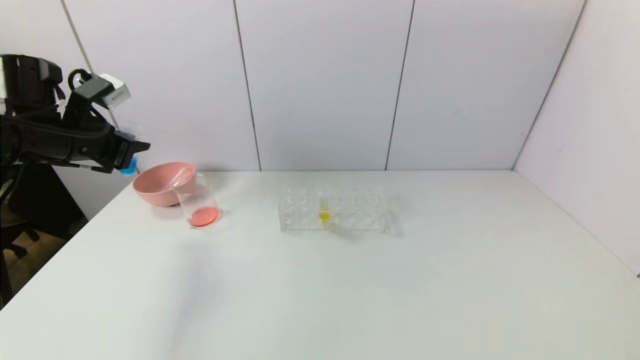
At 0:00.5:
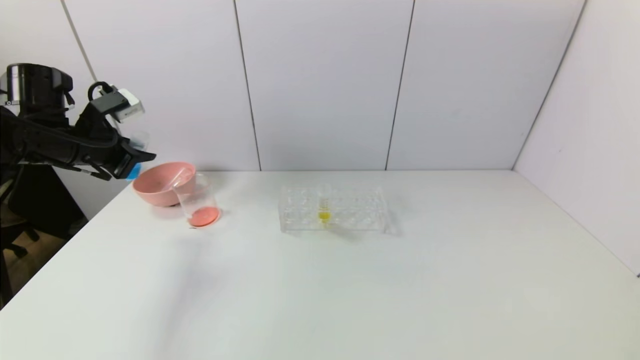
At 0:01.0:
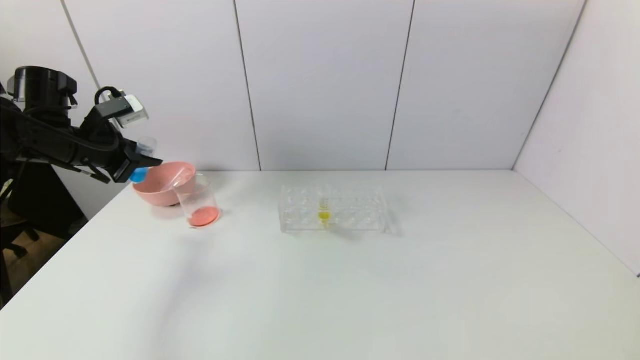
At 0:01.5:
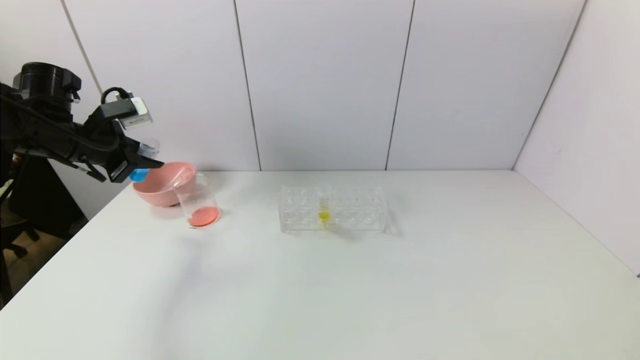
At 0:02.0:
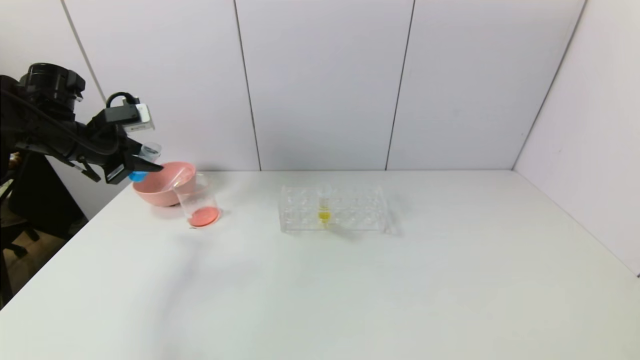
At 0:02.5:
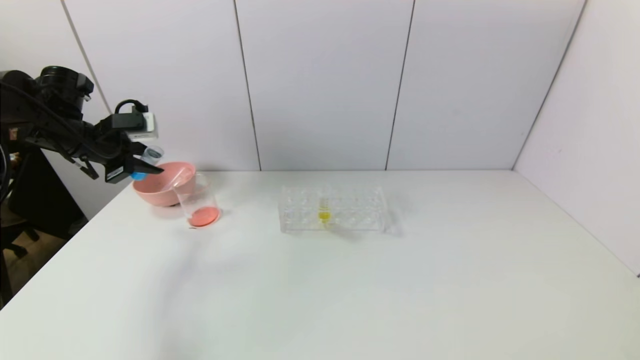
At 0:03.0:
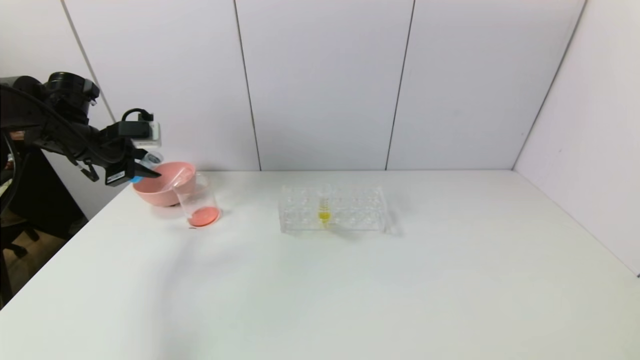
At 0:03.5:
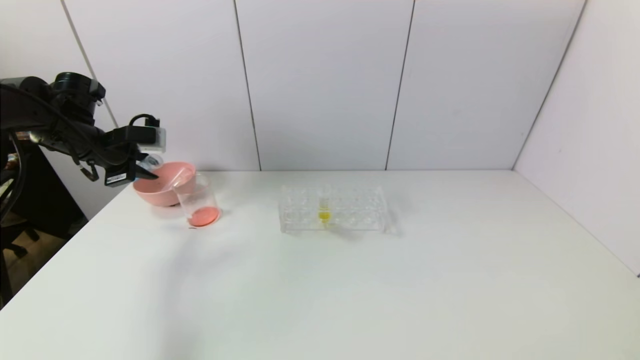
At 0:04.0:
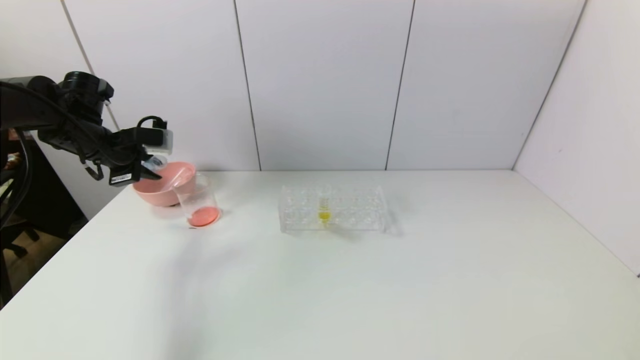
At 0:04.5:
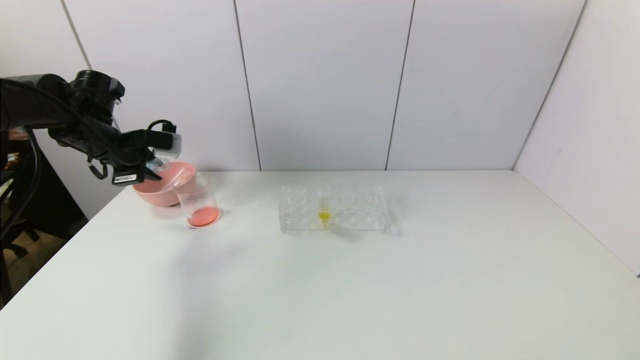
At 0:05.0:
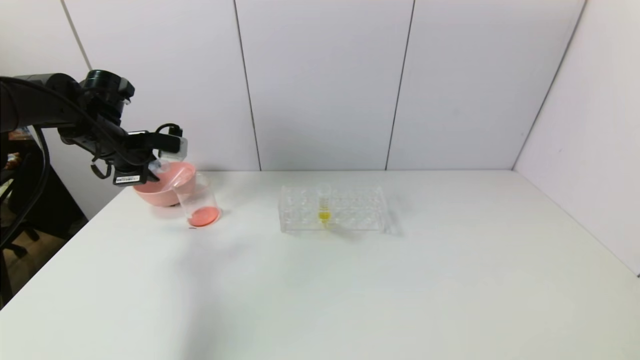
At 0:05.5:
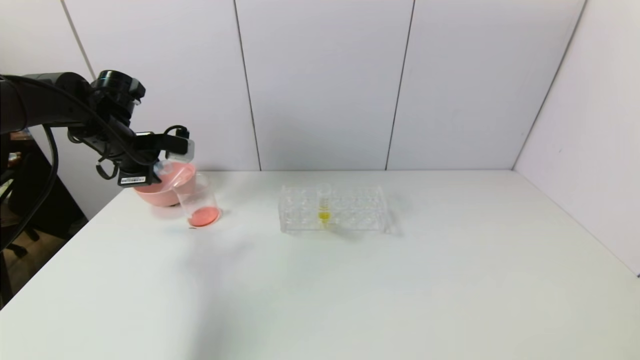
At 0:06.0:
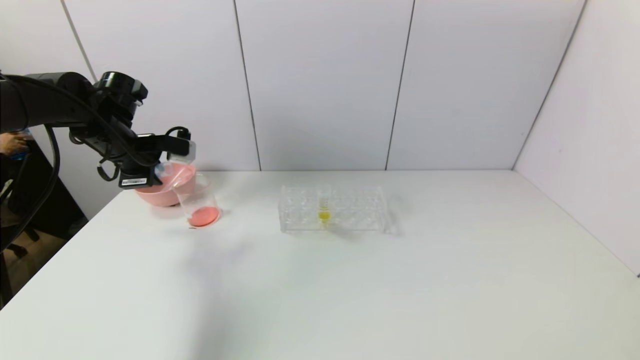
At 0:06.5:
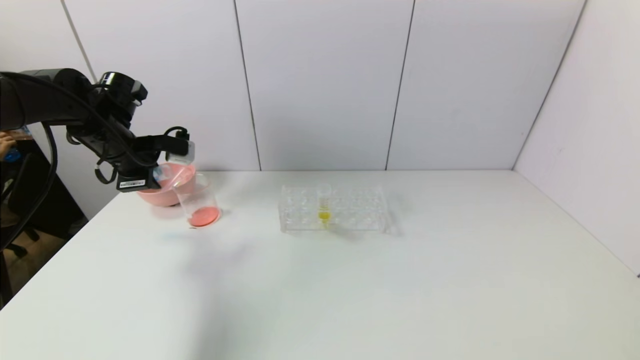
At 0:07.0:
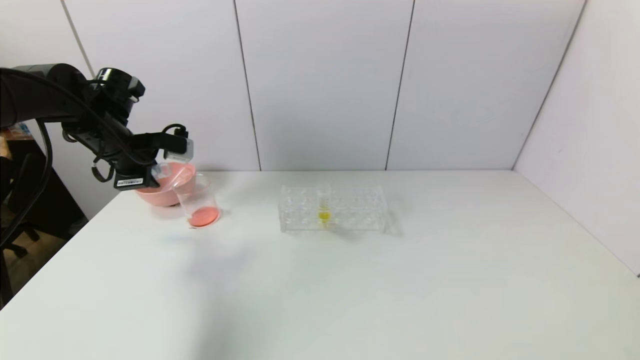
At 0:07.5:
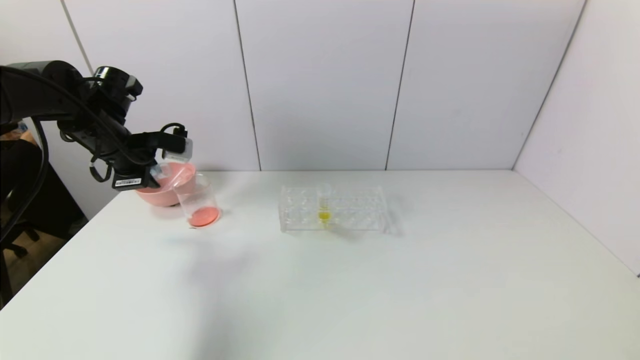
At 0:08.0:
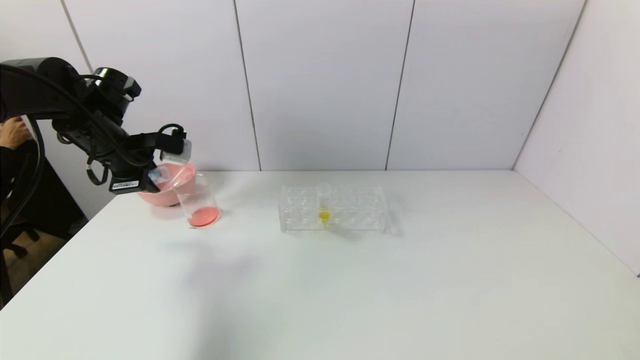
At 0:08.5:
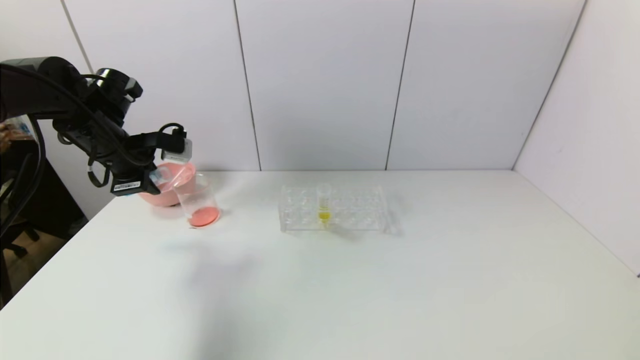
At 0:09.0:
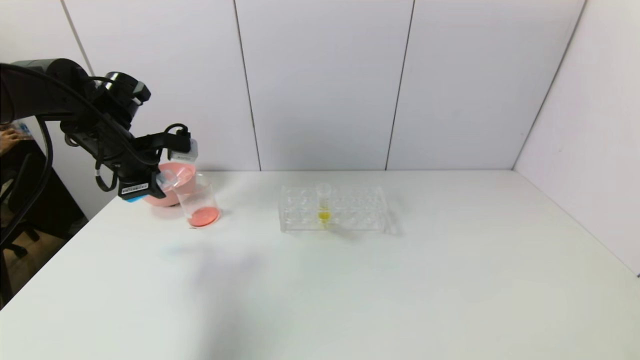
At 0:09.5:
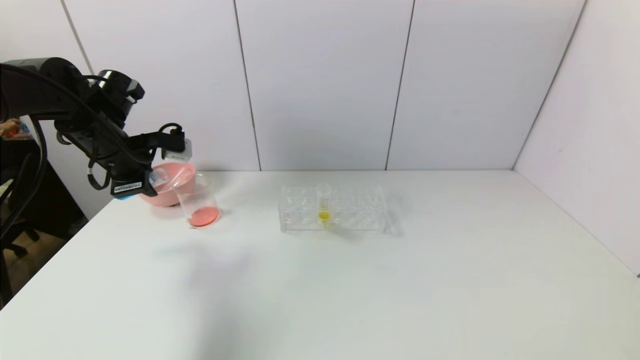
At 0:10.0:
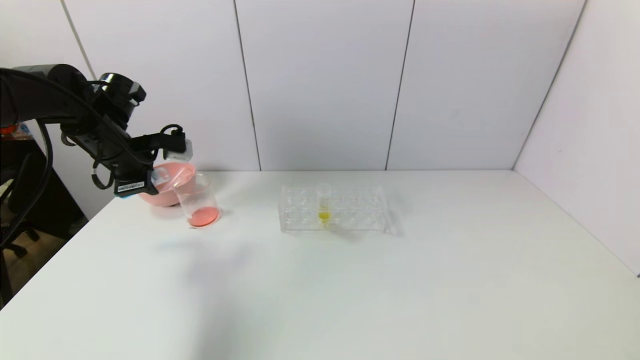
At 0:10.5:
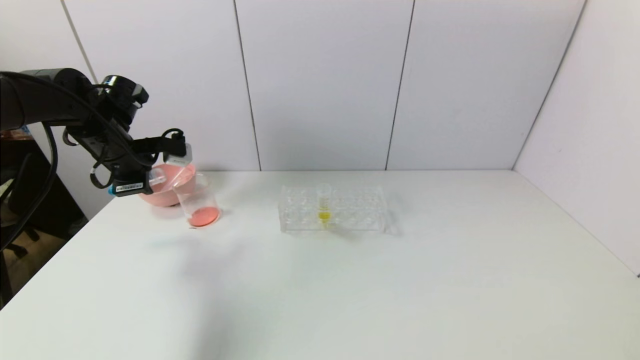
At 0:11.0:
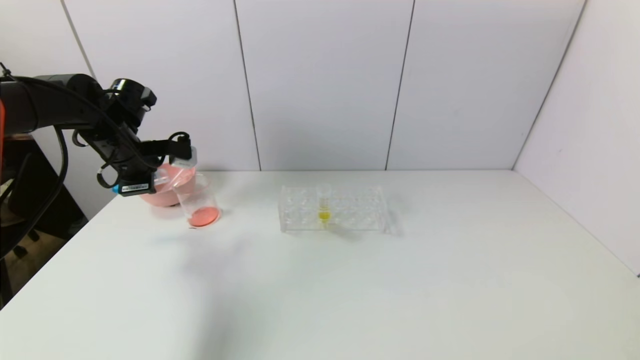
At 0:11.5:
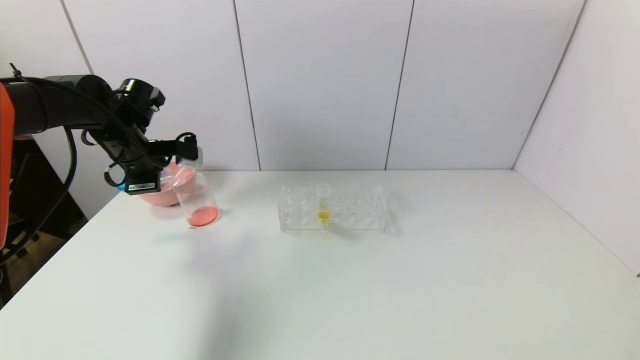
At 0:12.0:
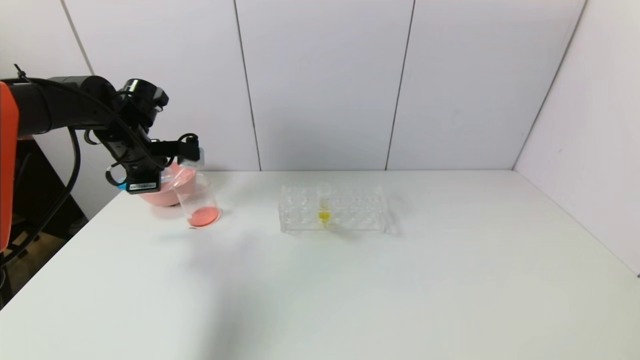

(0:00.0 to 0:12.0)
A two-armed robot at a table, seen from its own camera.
Task of the whole recording: pick up the test tube with red pigment and the test tube with blue pigment by grippers and pour them into the container.
0:04.0 - 0:08.0: The grippers move only a little.
0:08.0 - 0:12.0: The grippers make only small movements.

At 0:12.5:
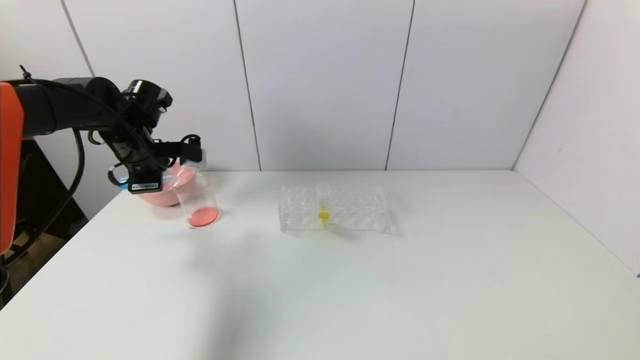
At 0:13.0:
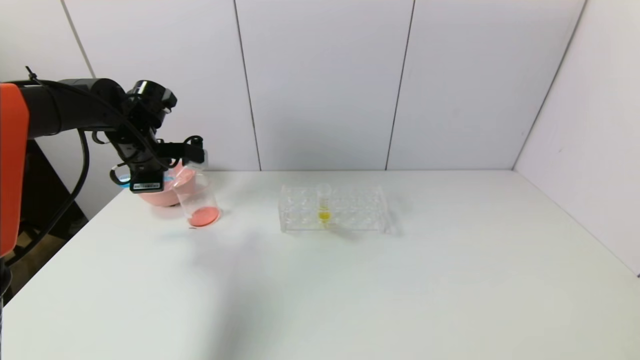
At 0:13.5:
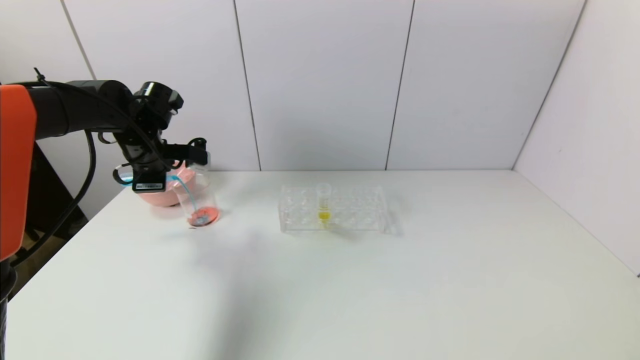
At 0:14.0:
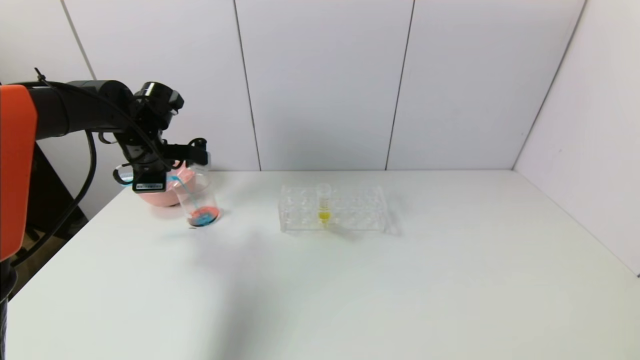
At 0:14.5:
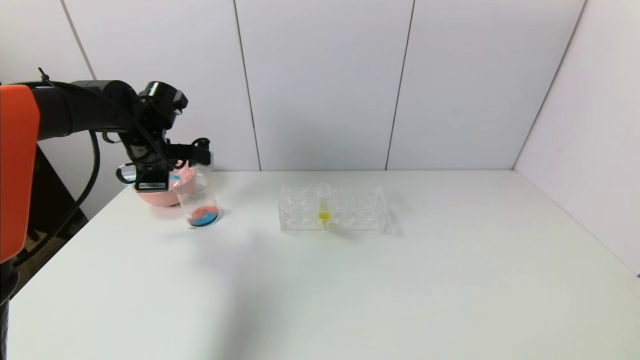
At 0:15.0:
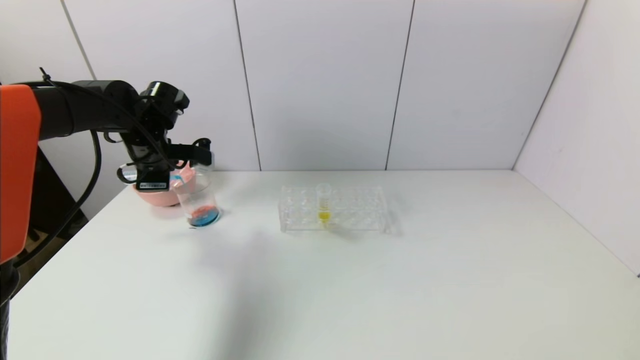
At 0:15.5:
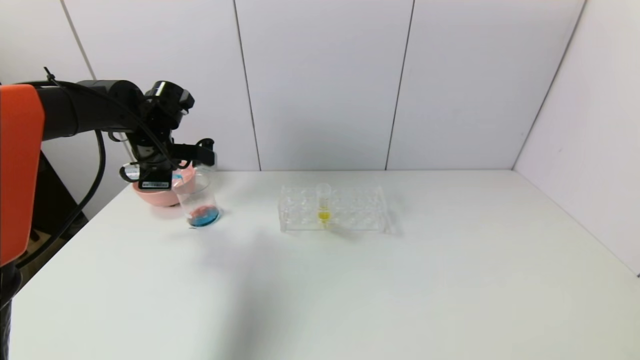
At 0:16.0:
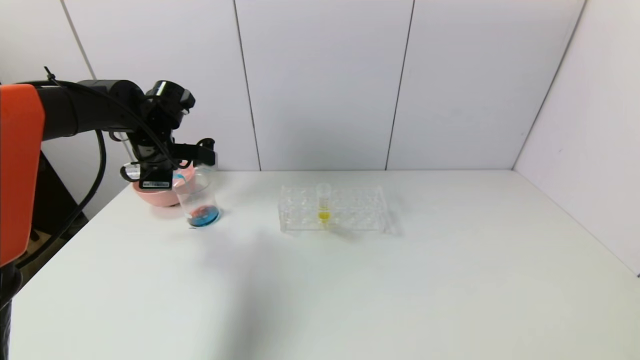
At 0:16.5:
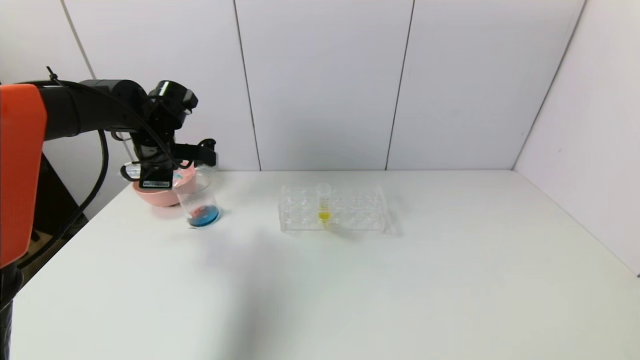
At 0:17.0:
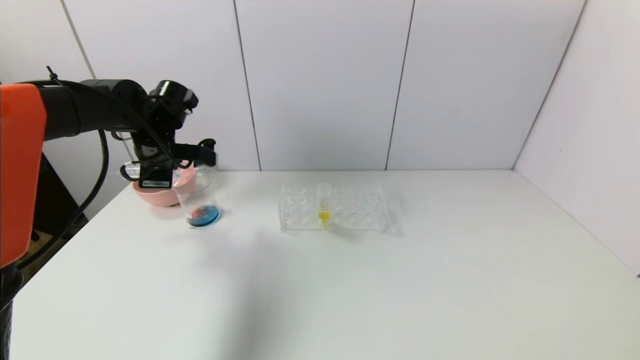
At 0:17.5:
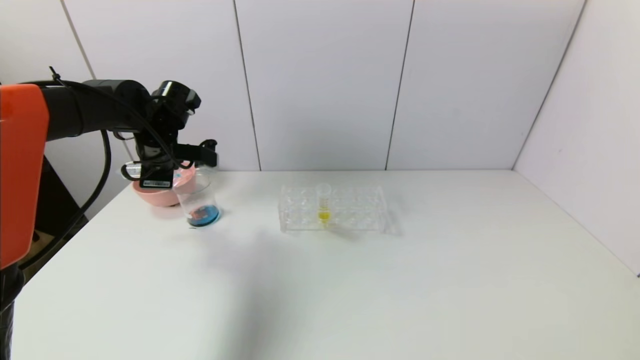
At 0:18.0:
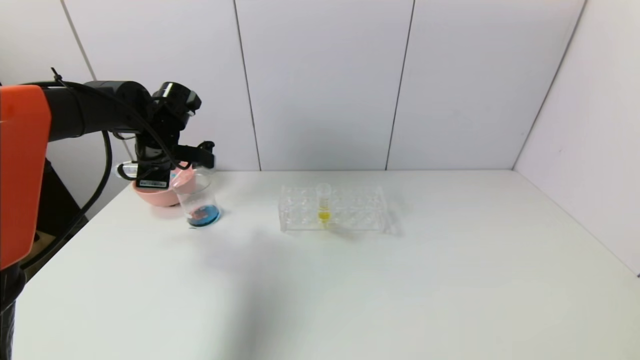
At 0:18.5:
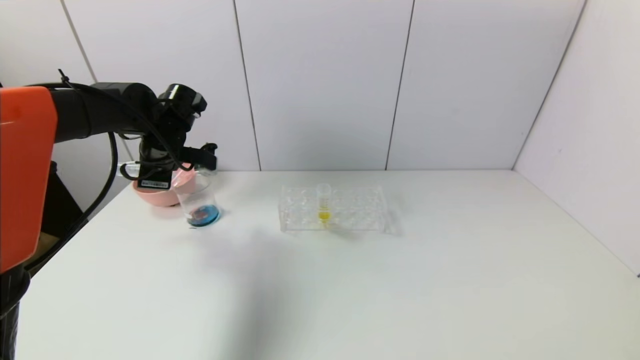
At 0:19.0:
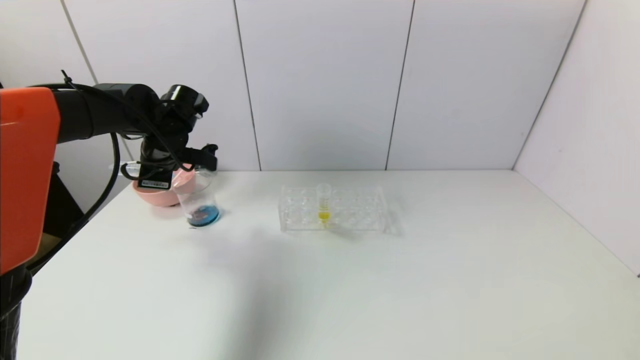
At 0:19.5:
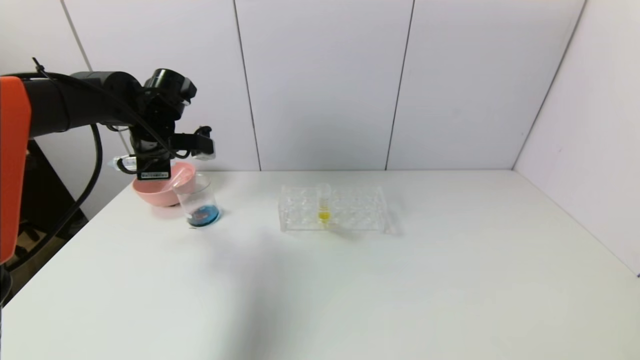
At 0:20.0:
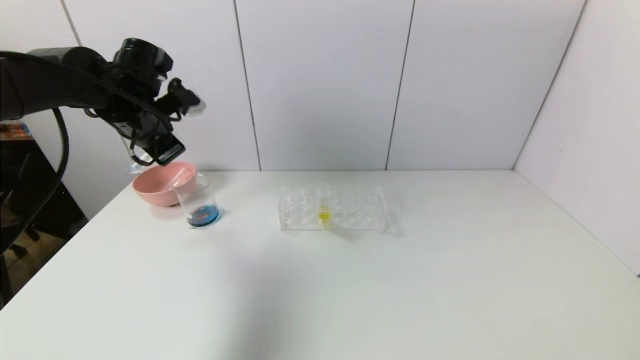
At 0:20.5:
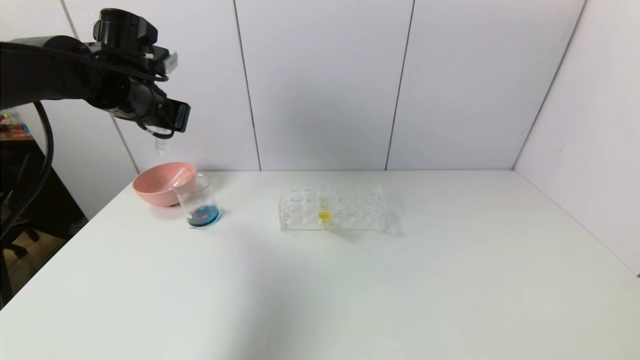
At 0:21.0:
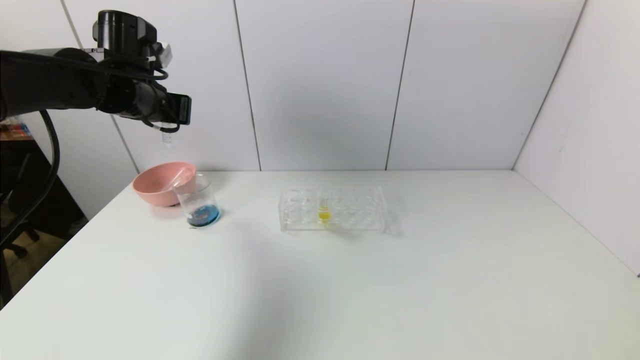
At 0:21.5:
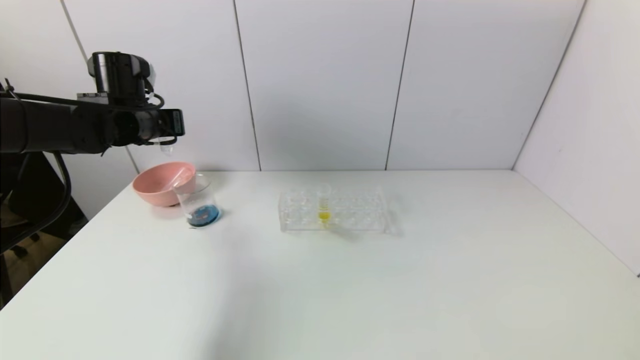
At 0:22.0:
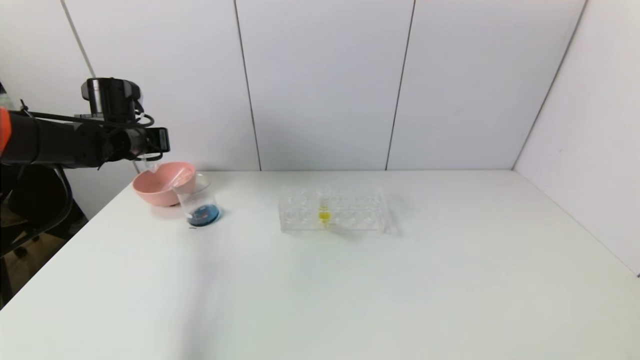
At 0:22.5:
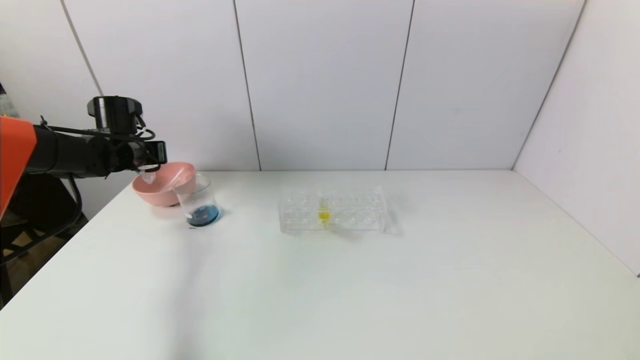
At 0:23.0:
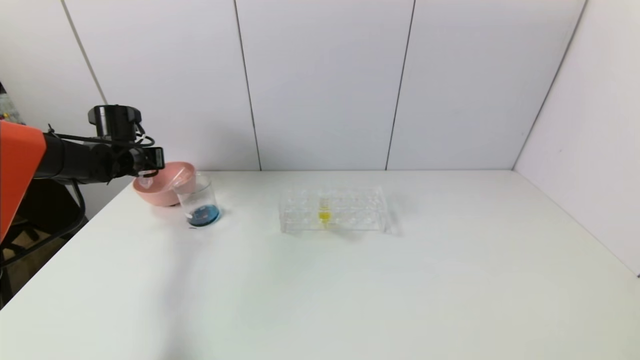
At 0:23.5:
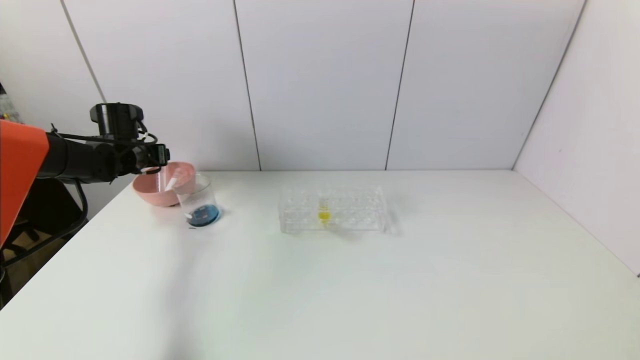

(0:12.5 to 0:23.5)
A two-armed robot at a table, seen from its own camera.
Task of the whole recording: pick up the test tube with red pigment and the test tube with blue pigment by grippers and pour them into the container.
Step, 0:12.5 - 0:20.0: Pour the blue reagent into the graduated cylinder with the left gripper.
0:12.5 - 0:14.5: The grippers stay close to where they were, moving slightly.
0:14.5 - 0:16.0: The two grippers keep their place.
0:16.0 - 0:18.0: The grippers stay close to where they were, moving slightly.
0:18.0 - 0:20.0: The left gripper is displaced upward by some 5 cm.
0:21.5 - 0:23.5: The left gripper is displaced downward and to the left by about 10 cm, and opens its fingers.
